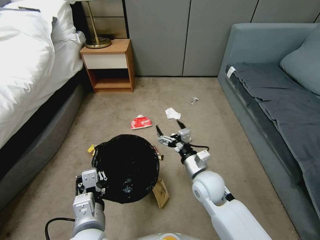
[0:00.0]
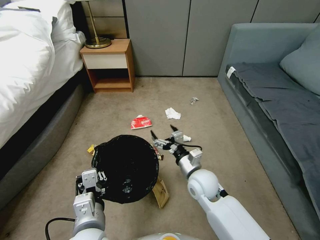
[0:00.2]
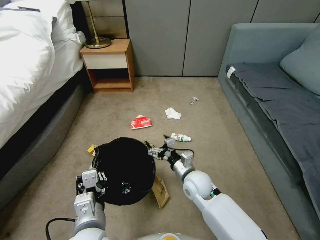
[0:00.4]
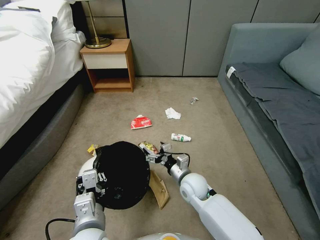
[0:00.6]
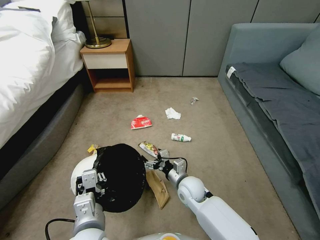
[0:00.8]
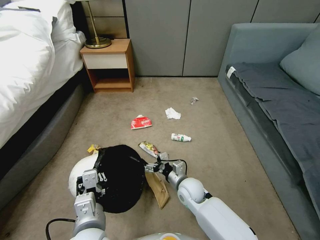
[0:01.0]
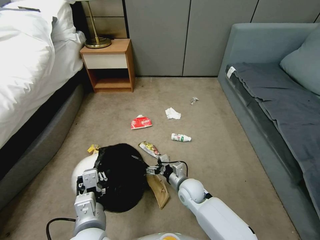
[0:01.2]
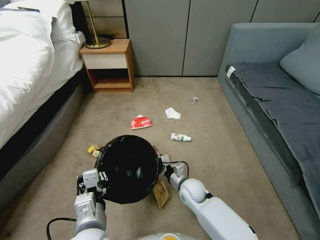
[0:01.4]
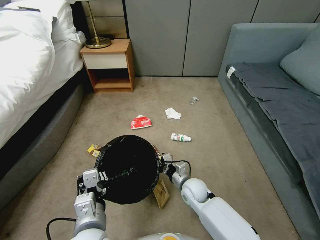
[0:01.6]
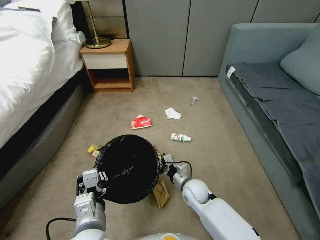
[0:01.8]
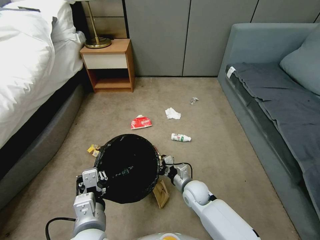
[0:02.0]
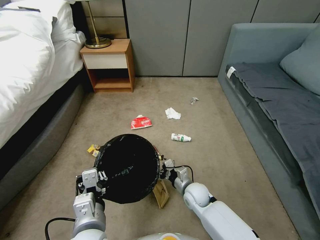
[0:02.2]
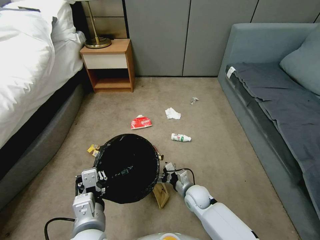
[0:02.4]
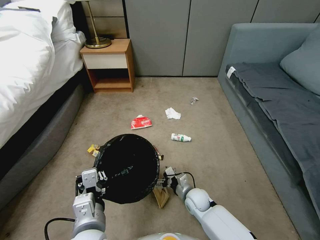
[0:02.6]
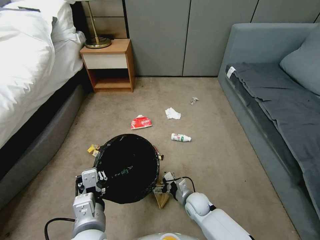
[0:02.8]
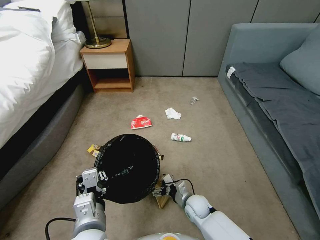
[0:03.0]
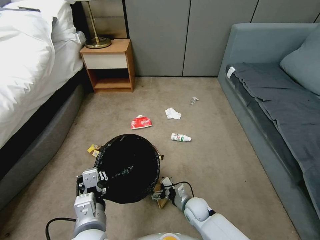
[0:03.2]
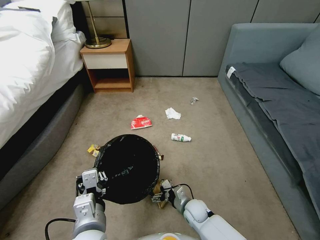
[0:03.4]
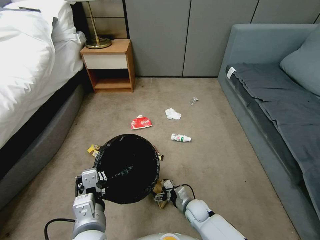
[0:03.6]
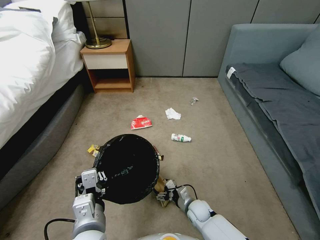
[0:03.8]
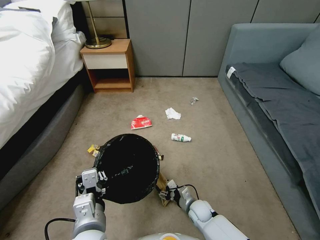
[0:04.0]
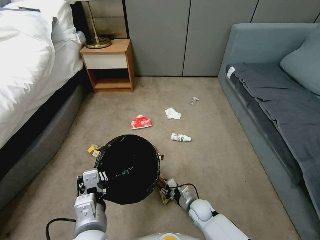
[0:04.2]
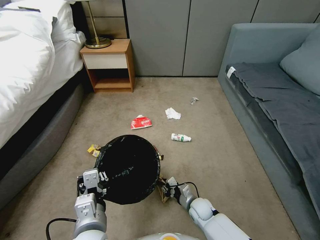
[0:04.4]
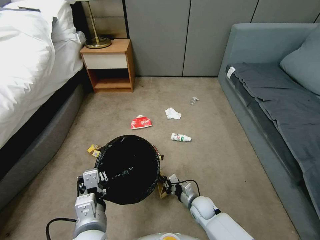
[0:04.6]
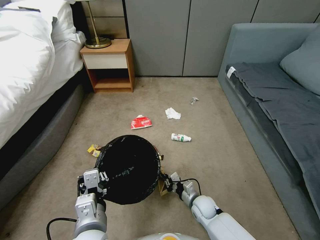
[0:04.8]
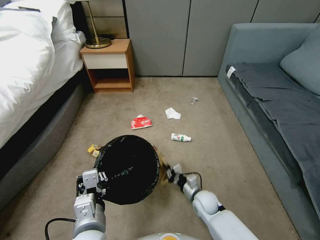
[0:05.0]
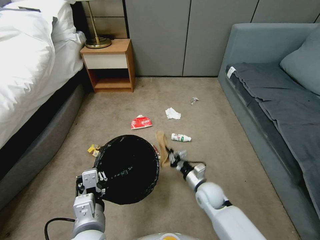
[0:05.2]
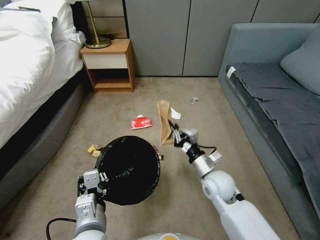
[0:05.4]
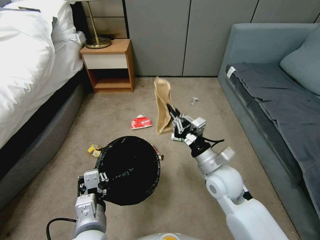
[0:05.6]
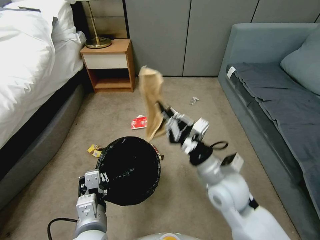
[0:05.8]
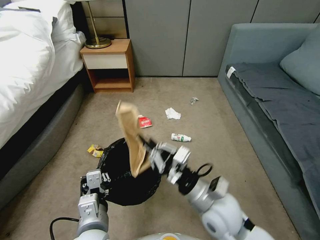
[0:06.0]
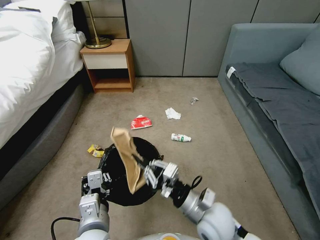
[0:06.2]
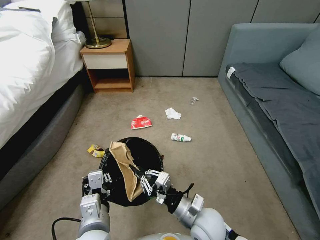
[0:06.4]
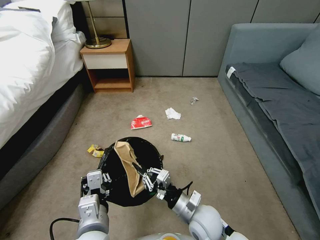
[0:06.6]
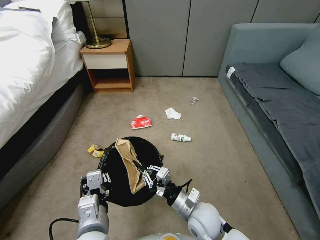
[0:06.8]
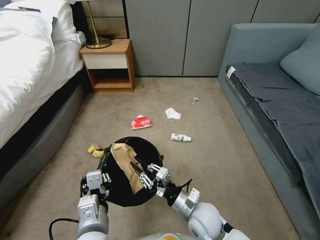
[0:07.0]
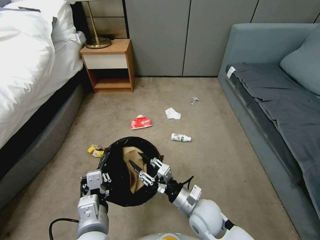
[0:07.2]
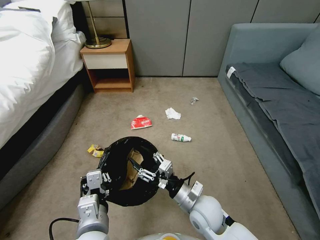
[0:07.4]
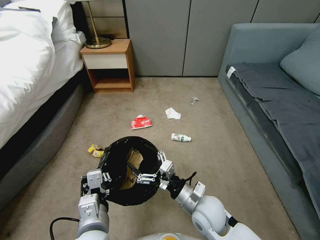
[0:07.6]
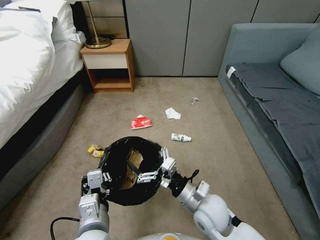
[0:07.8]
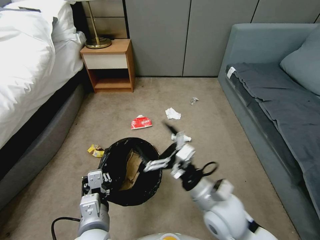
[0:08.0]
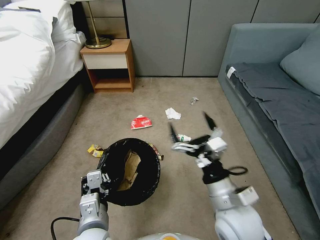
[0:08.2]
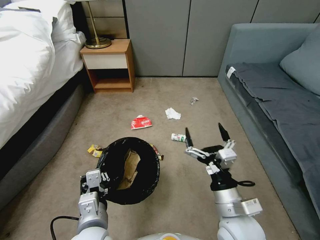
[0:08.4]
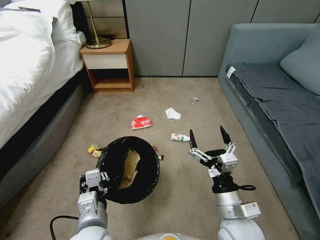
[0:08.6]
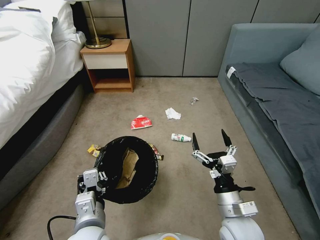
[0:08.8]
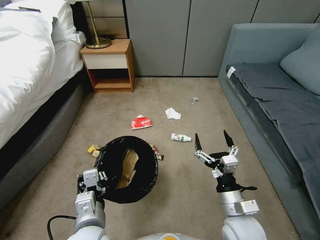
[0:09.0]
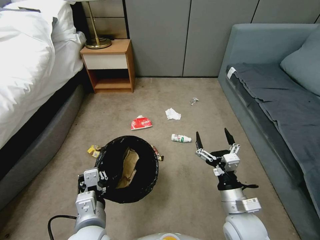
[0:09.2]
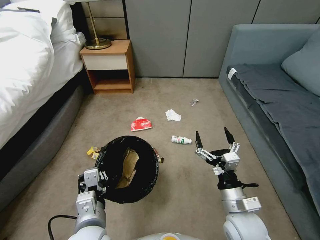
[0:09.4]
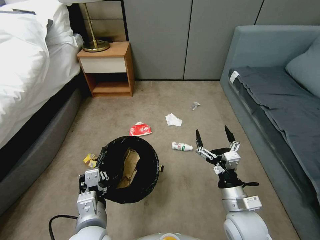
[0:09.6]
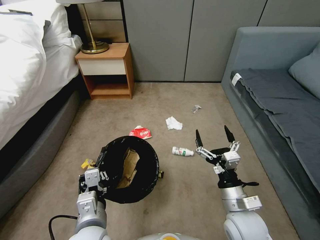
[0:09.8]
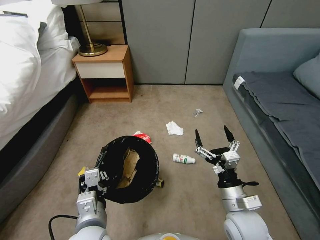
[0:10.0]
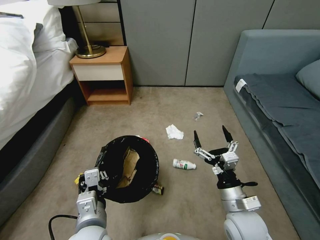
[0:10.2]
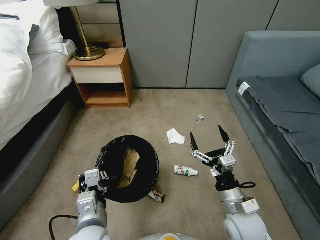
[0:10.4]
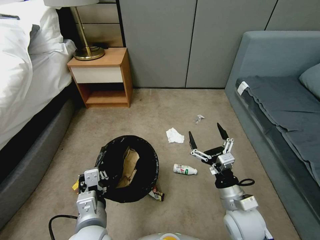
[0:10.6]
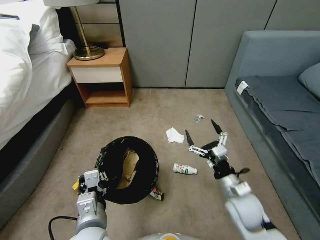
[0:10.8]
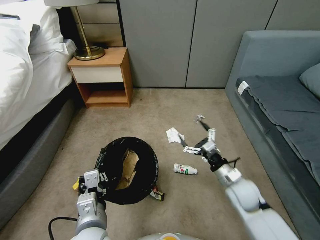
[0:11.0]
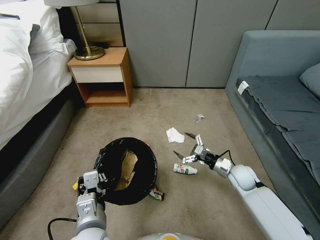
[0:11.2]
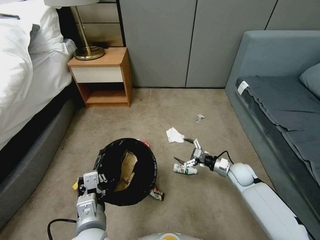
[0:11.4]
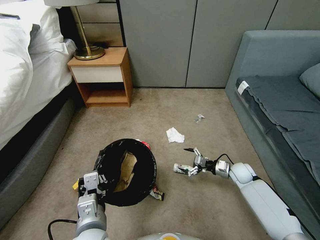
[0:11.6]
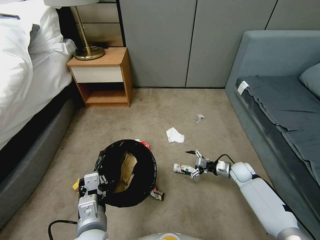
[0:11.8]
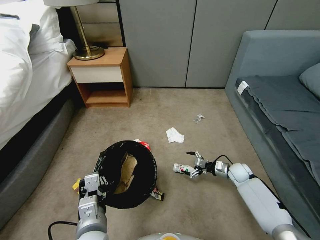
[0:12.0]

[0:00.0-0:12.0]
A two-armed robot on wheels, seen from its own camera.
Task of the whole recording: Pick up the trash bin, then pick up the garbage from the floor and place it into the trash bin.
0:00.0 to 0:01.6: The right gripper goes approximately 15 cm downward.
0:01.6 to 0:03.0: The right gripper shifts about 10 cm downward.
0:03.0 to 0:04.4: The right gripper closes its fingers.
0:04.4 to 0:06.0: The right gripper moves upward, some 30 cm.
0:06.0 to 0:07.6: The right gripper shifts some 10 cm downward, and opens its fingers.
0:07.6 to 0:09.0: The right gripper travels to the right by about 10 cm, and moves approximately 10 cm upward and comes back.
0:10.4 to 0:12.0: The right gripper shifts some 30 cm forward, downward and to the right.

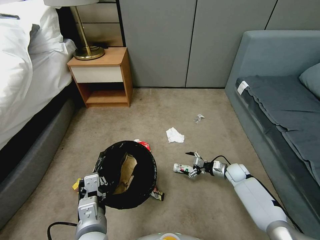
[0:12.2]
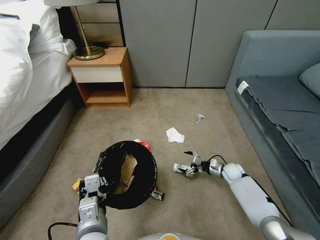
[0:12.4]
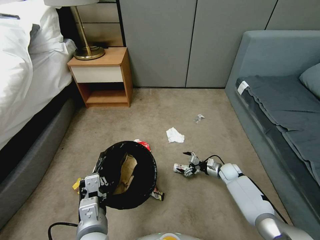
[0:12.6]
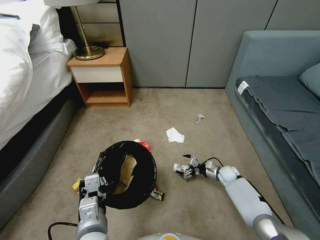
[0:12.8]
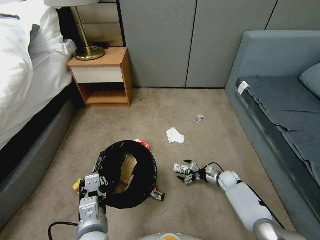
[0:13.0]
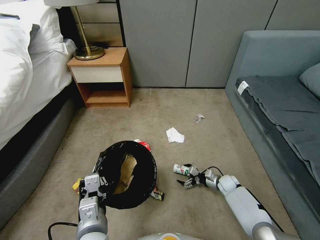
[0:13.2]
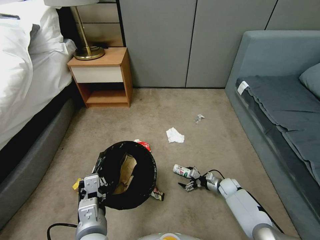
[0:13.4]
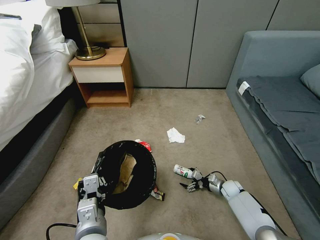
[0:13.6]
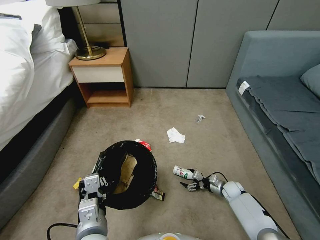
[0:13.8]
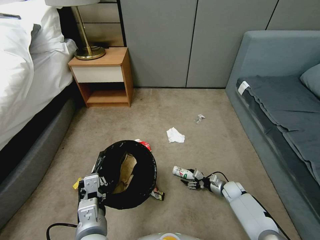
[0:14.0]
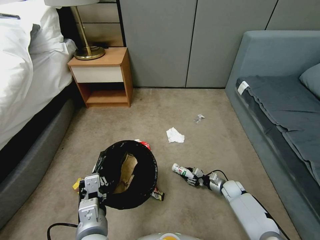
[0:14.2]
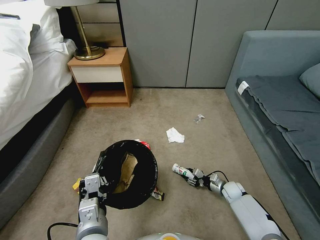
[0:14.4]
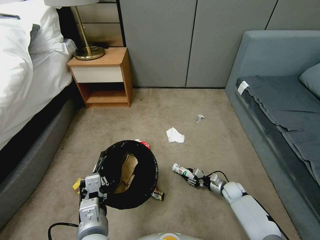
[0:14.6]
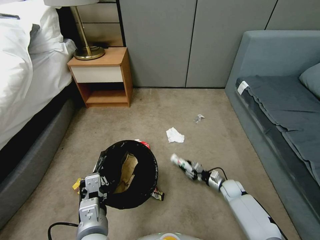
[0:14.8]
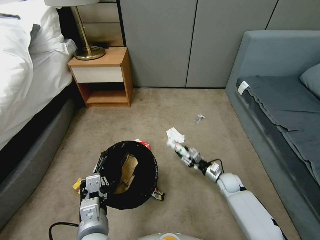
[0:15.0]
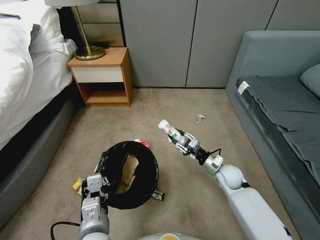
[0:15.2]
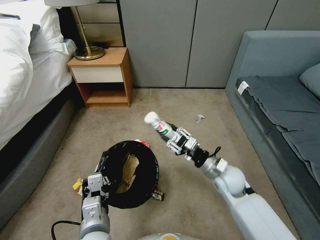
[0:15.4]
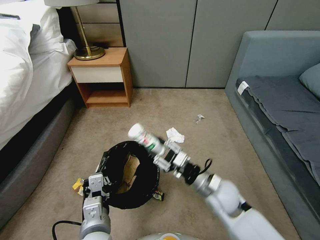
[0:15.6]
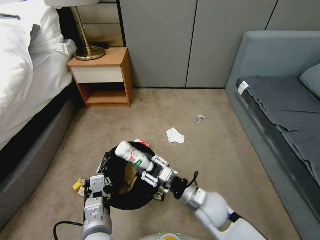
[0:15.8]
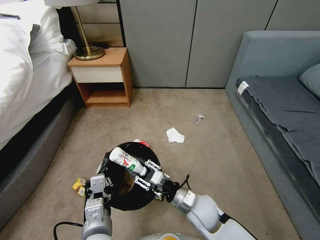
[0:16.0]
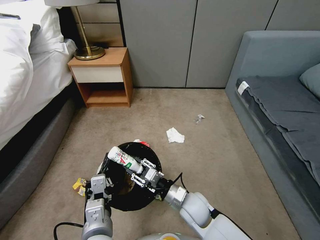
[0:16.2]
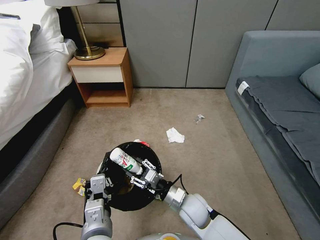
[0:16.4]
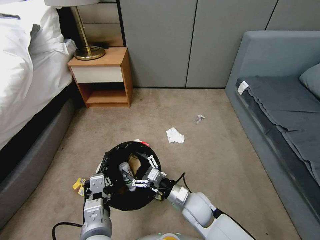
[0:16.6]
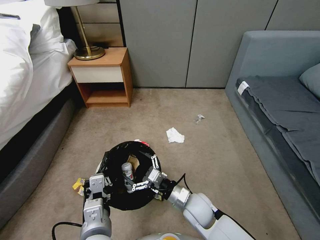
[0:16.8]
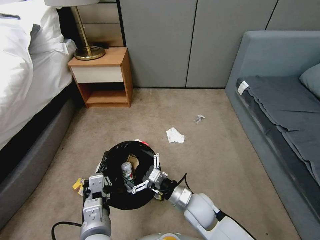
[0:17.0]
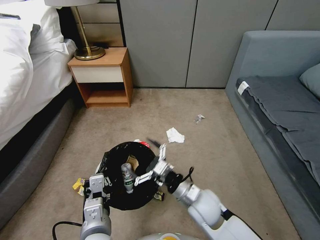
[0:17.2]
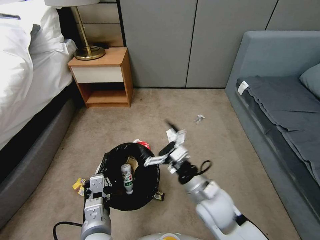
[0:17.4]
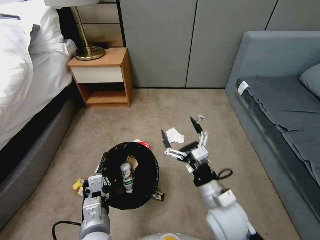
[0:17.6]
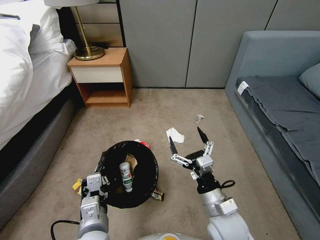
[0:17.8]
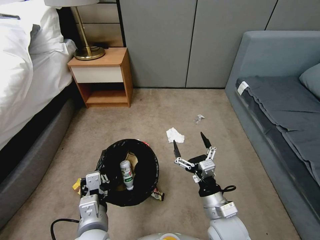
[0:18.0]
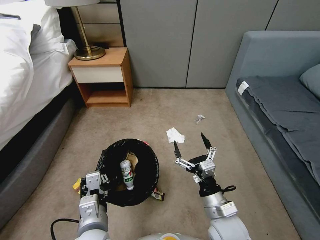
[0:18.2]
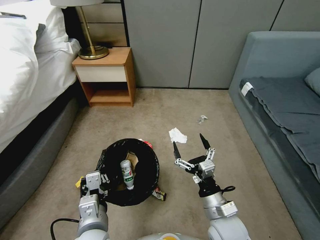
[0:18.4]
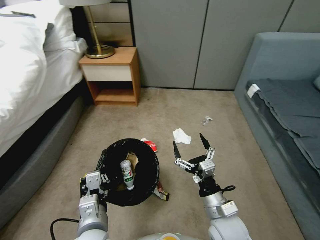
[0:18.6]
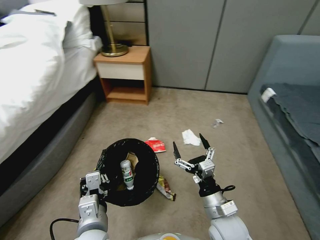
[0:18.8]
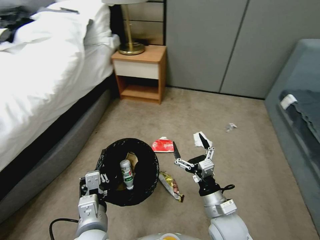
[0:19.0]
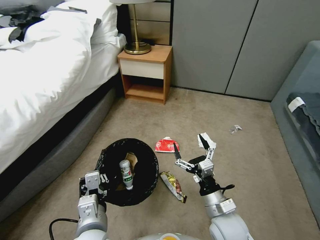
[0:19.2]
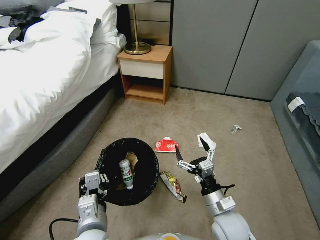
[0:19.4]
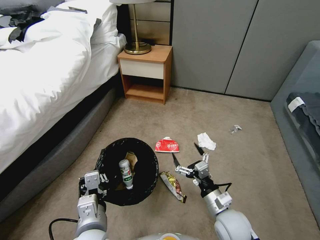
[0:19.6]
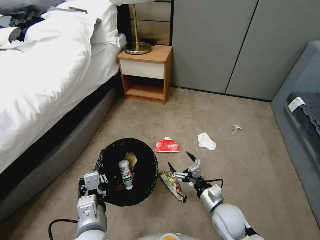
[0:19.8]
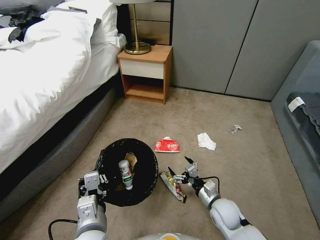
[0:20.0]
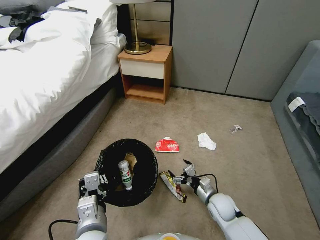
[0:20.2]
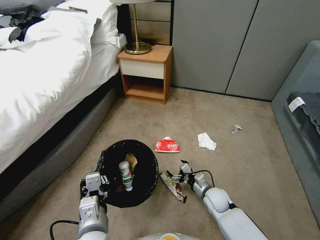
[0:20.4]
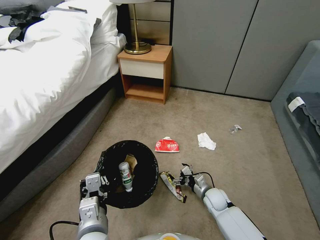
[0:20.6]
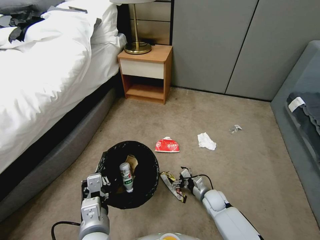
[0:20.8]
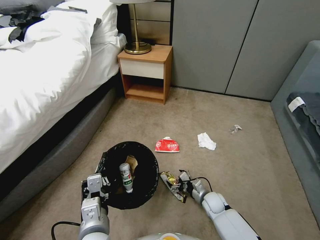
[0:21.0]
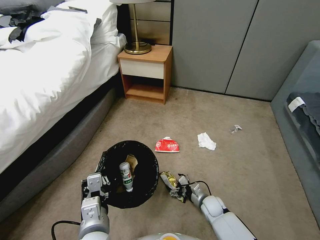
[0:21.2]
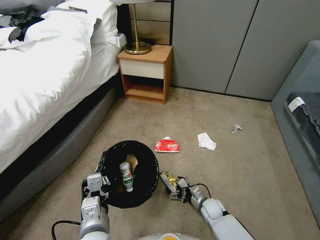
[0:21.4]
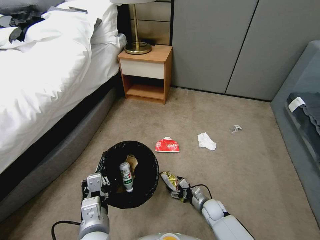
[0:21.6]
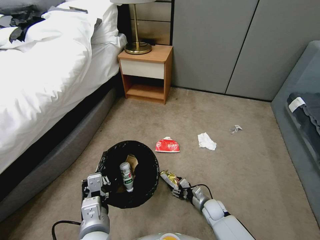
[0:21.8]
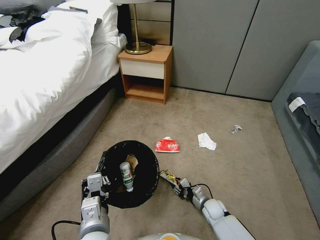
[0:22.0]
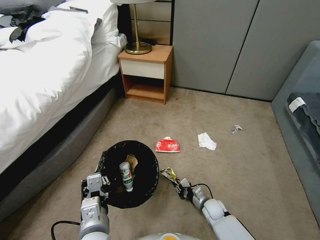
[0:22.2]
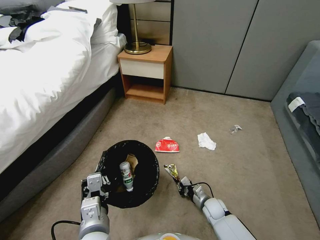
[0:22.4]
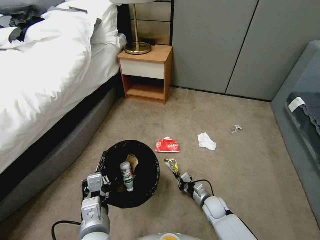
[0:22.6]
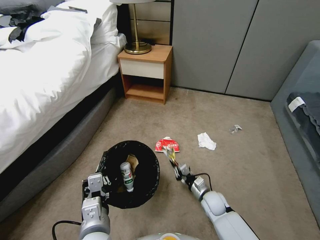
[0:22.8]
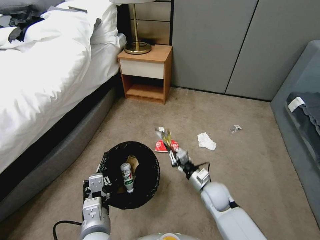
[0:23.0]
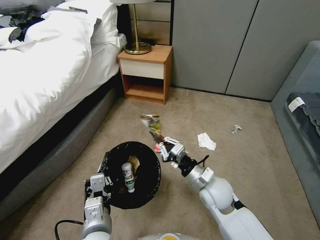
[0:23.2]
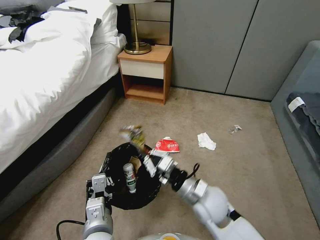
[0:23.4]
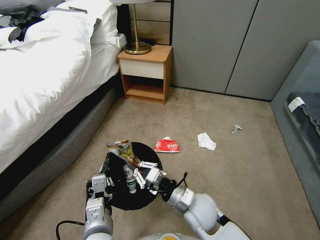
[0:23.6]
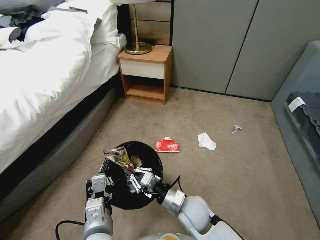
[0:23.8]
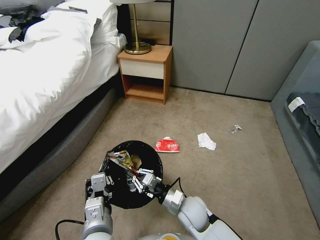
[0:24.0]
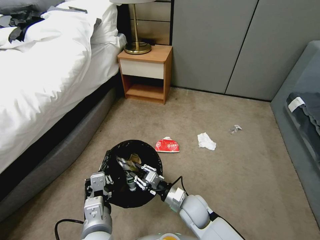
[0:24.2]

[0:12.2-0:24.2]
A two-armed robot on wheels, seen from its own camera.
Task of the whole recording: Pick up the trash bin, then pick up the garbage from the floor and place it into the trash bin.
0:12.2 to 0:13.8: The right gripper goes roughly 10 cm downward and backward.
0:13.8 to 0:15.2: The right gripper shifts about 20 cm upward and to the left, and closes.
0:15.2 to 0:16.6: The right gripper shifts approximately 20 cm to the left and backward.
0:16.6 to 0:18.2: The right gripper goes roughly 10 cm backward, upward and to the right.
0:18.2 to 0:19.8: The right gripper heads downward, covering about 5 cm.
0:19.8 to 0:21.2: The right gripper heads downward and forward, covering some 20 cm.
0:21.2 to 0:22.6: The right gripper closes up.
0:22.6 to 0:24.2: The right gripper heads upward and to the left, covering roughly 20 cm.
